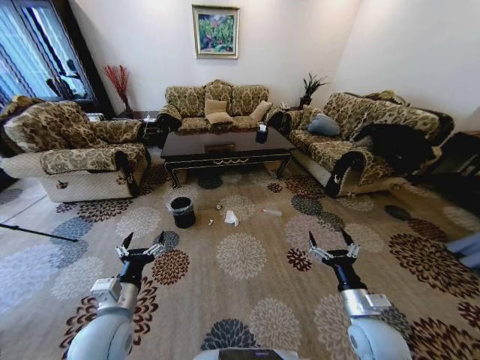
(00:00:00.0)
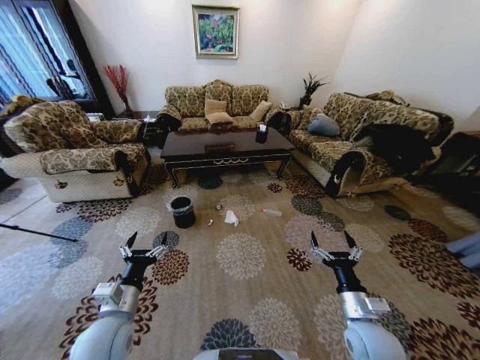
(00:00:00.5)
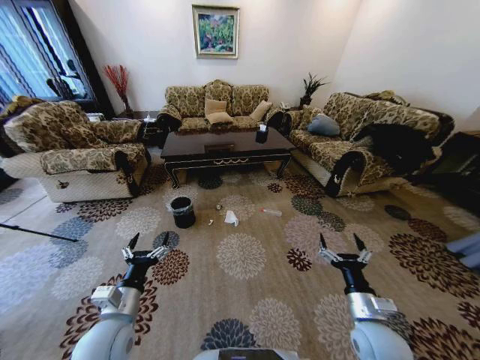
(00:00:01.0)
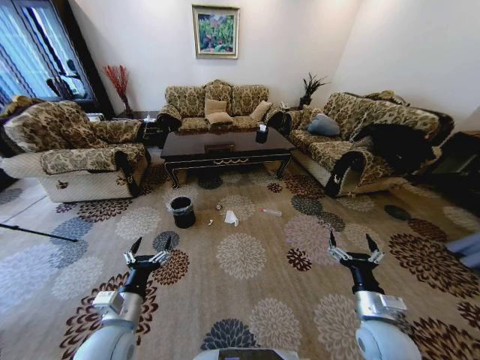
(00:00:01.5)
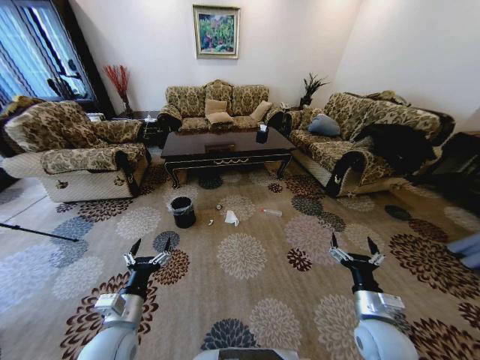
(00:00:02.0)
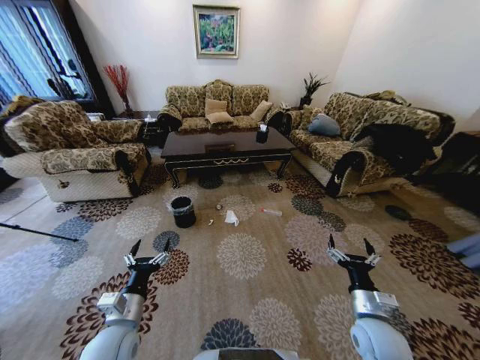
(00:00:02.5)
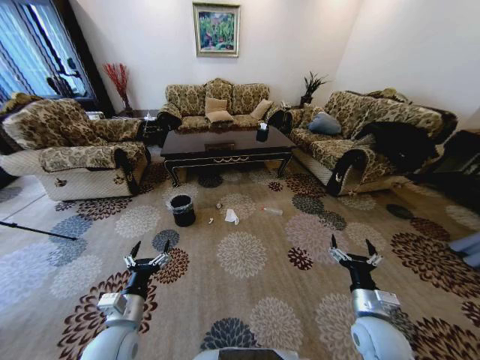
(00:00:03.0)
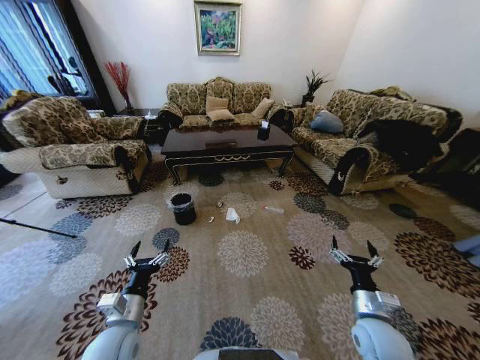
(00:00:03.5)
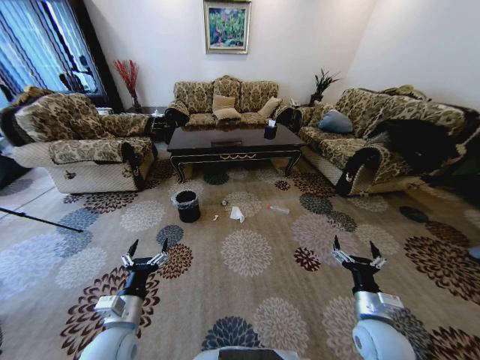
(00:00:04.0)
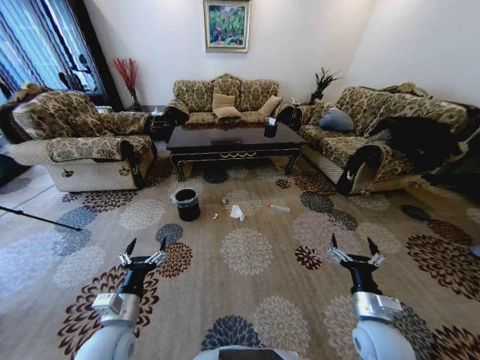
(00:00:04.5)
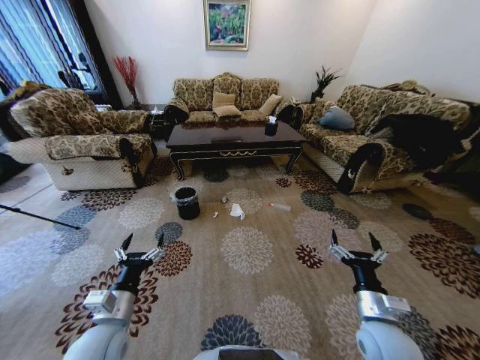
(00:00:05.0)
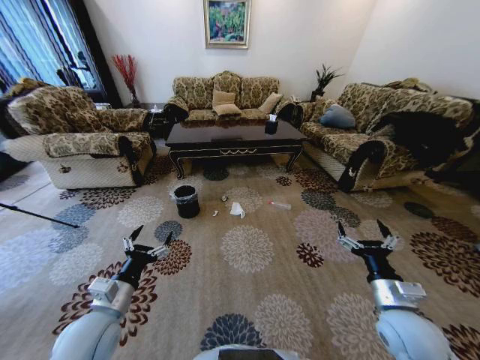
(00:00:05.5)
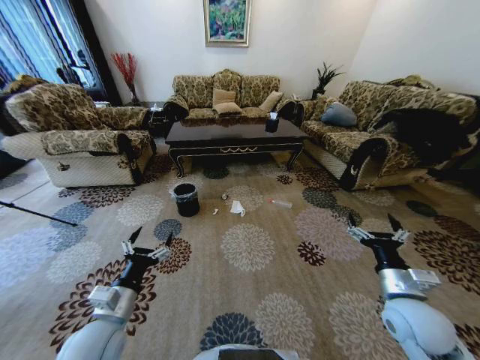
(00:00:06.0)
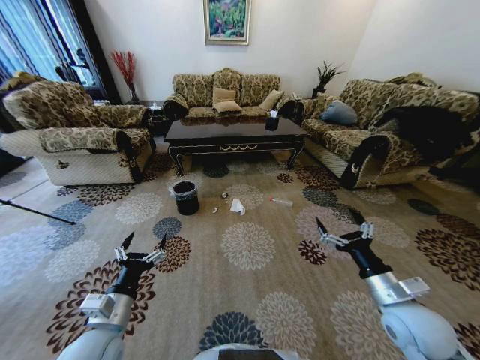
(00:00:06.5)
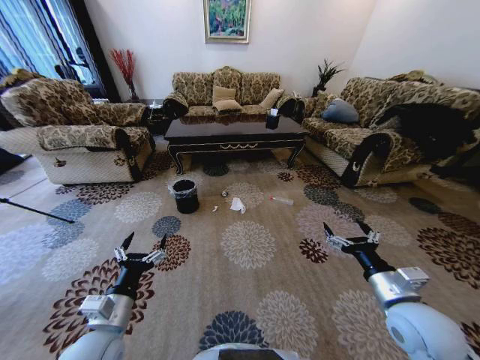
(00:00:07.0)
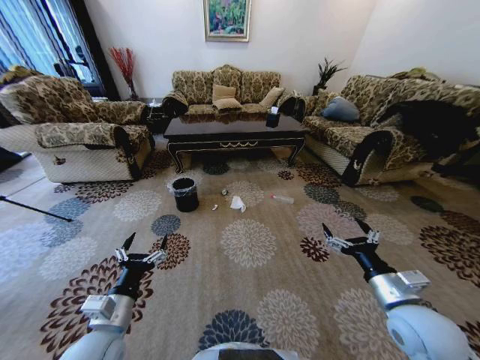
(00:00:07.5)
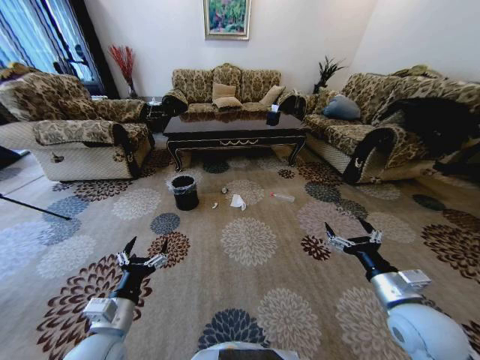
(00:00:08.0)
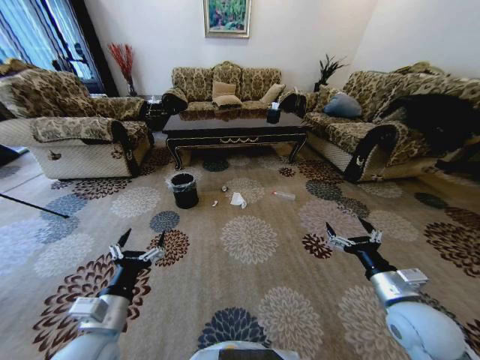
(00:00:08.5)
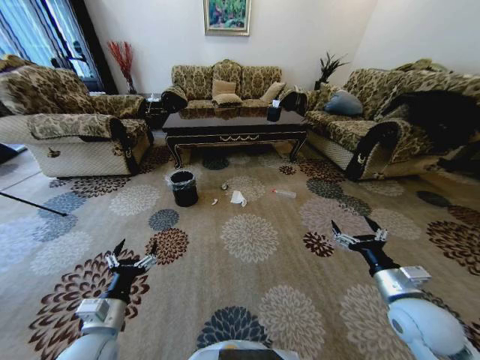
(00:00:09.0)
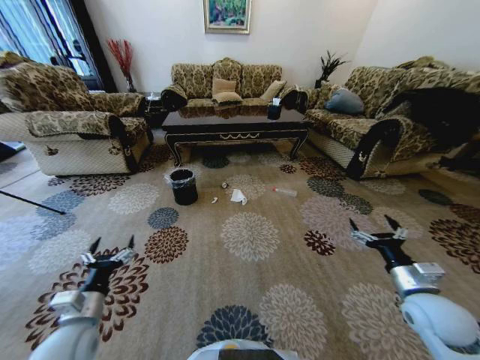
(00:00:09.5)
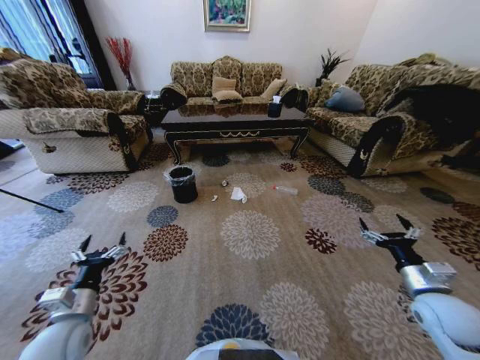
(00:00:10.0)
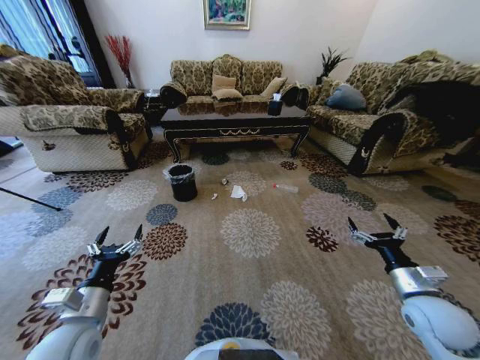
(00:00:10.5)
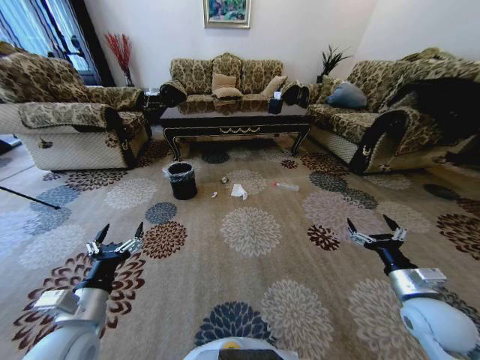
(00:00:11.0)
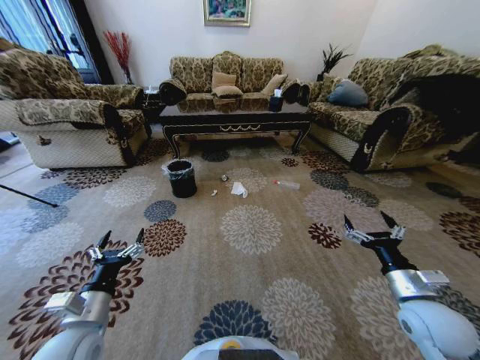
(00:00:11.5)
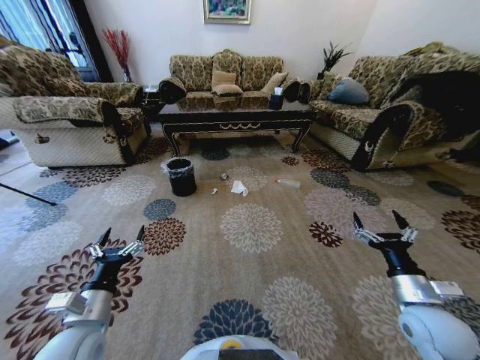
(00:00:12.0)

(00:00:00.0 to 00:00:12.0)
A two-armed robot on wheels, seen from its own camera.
Task of the whole recording: Move to the front of the table and pick up the trash from the floor, then place it into the trash bin.
00:00:04.0 - 00:00:06.0: The right gripper is displaced upward by about 10 cm.
00:00:08.0 - 00:00:10.0: The left gripper shifts roughly 10 cm to the left; the right gripper heads to the right, covering about 10 cm.
00:00:10.0 - 00:00:12.0: The left gripper goes roughly 5 cm to the right. Meanwhile the right gripper shifts by roughly 5 cm.

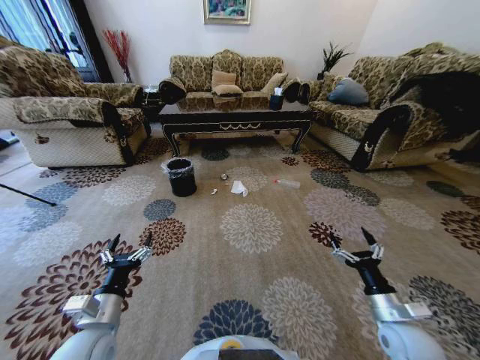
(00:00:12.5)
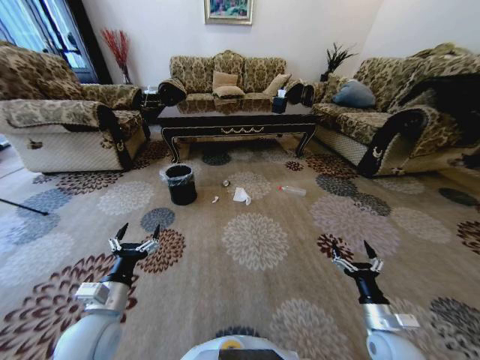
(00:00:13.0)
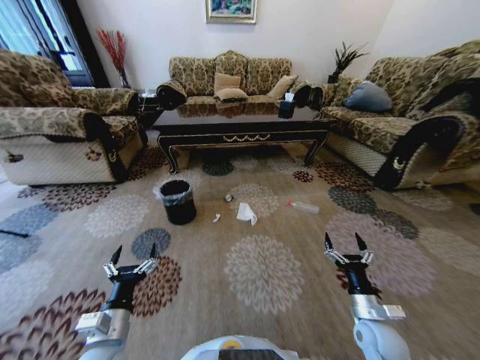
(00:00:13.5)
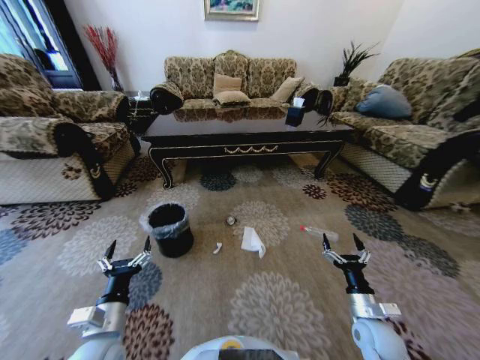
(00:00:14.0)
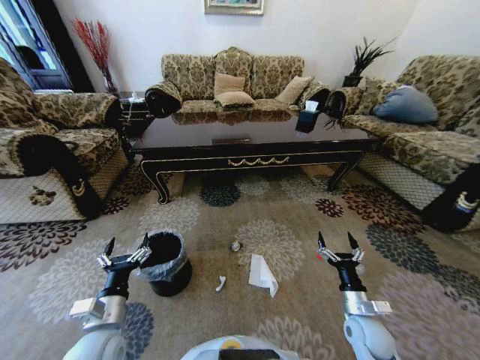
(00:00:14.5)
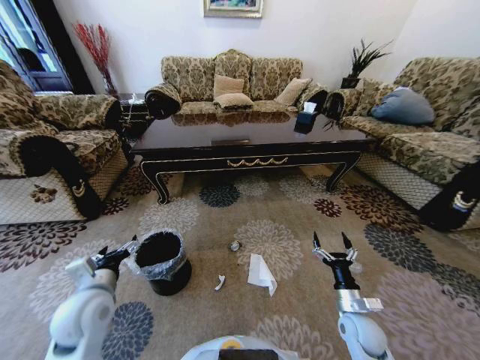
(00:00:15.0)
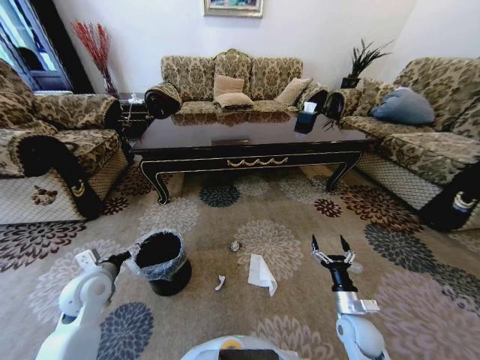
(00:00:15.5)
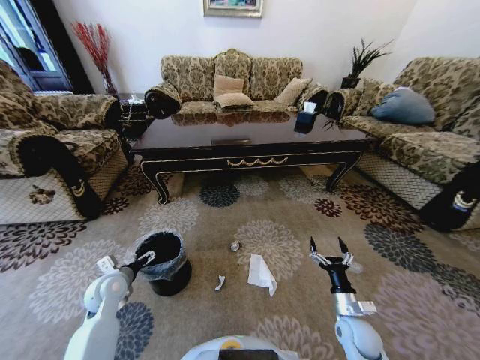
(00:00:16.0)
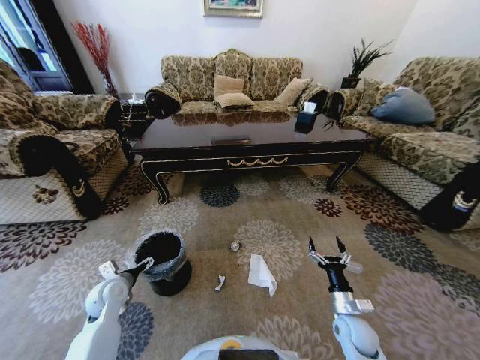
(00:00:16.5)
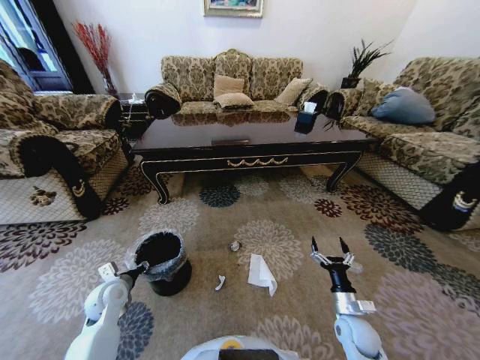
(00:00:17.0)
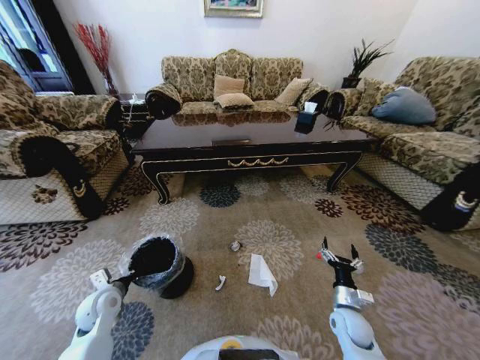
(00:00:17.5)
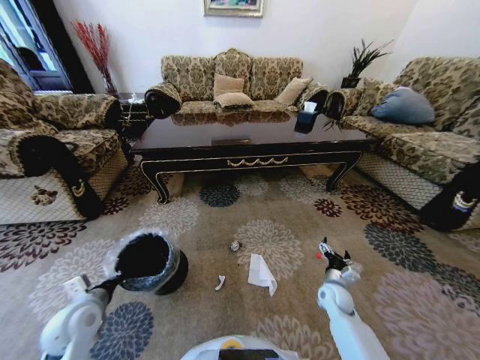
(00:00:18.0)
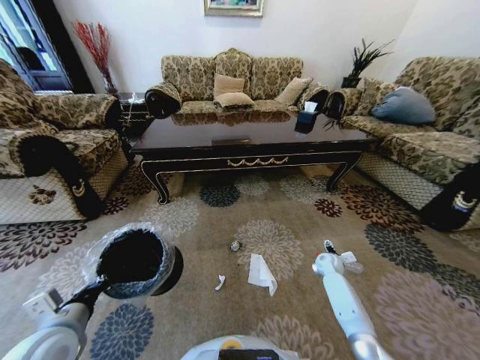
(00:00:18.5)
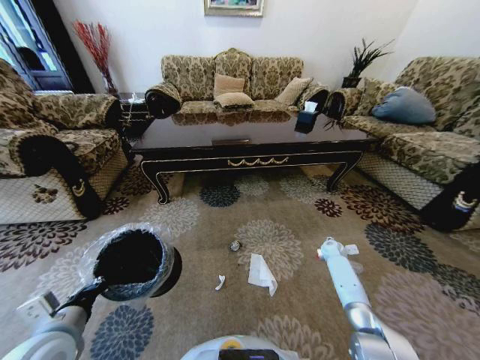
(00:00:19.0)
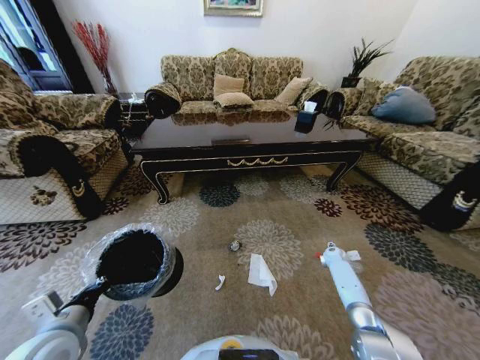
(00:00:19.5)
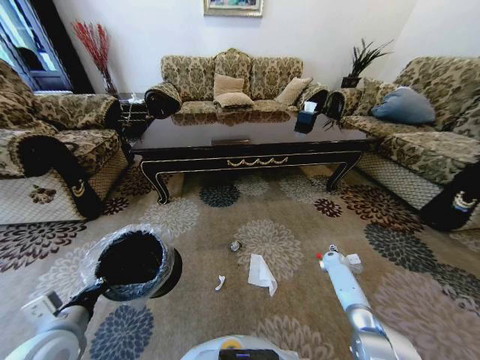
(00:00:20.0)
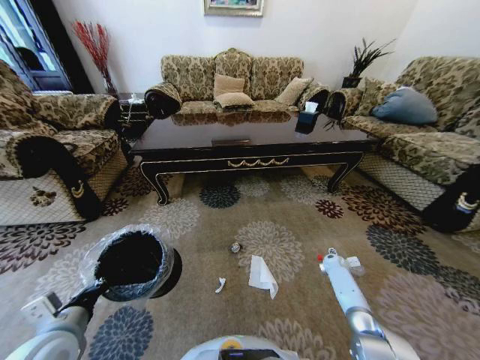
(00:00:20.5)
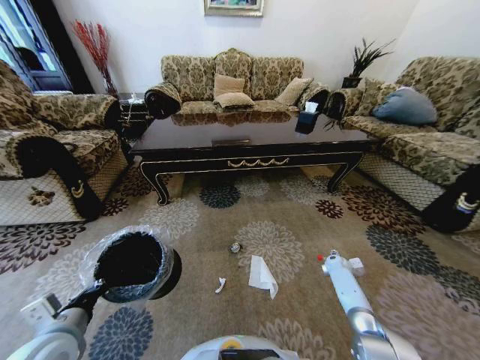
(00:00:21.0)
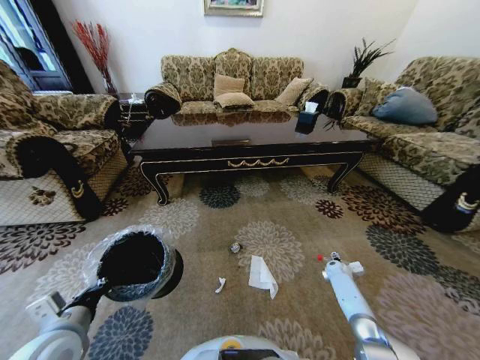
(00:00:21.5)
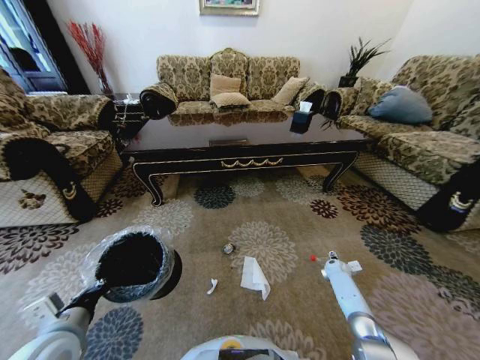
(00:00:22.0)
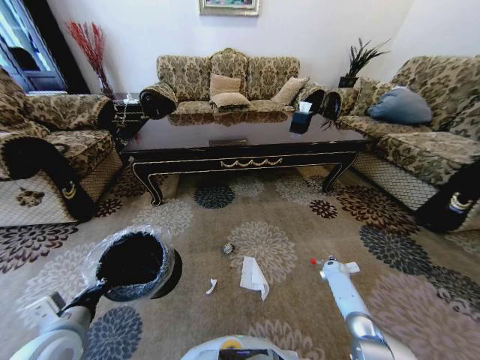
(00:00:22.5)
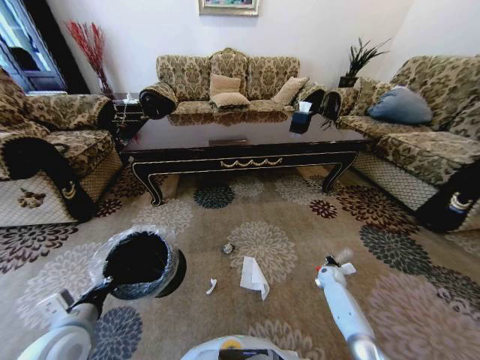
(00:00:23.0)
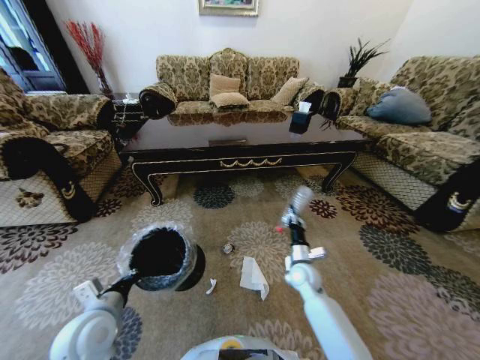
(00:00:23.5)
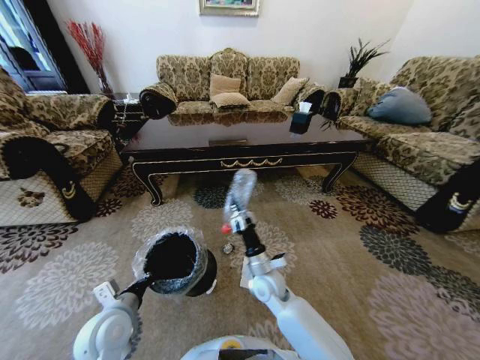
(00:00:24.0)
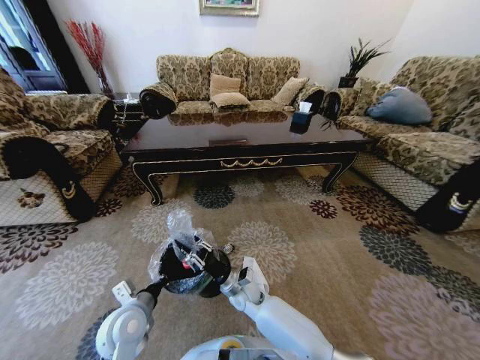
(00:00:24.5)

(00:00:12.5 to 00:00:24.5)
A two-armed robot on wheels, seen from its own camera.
Task of the whole recording: Move to the front of the table and pick up the trash from the floor, then place it into the trash bin.
00:00:12.5 - 00:00:14.5: The right gripper moves downward, about 5 cm.
00:00:14.5 - 00:00:16.5: The left gripper shifts some 15 cm forward, to the left and downward.
00:00:16.5 - 00:00:18.5: The right gripper shifts approximately 20 cm forward. The left gripper goes about 20 cm backward and upward, and closes.
00:00:18.5 - 00:00:20.5: The right gripper goes some 10 cm to the right and downward.
00:00:22.5 - 00:00:24.5: The right gripper travels to the left by some 40 cm, and closes. Meanwhile the left gripper heads to the right, downward and forward, covering some 10 cm.

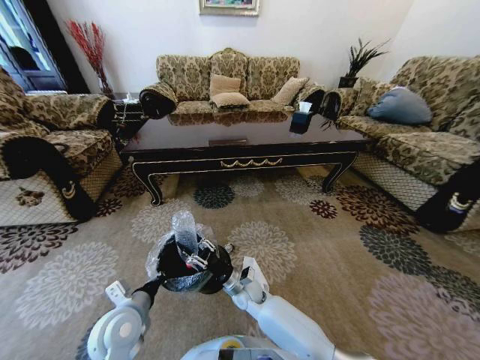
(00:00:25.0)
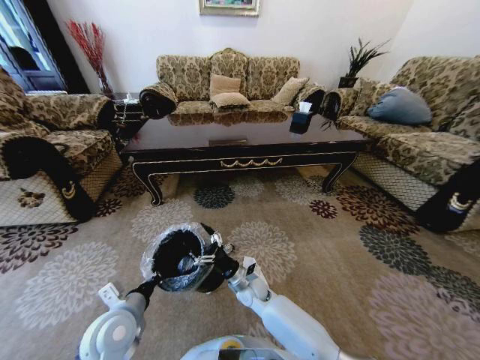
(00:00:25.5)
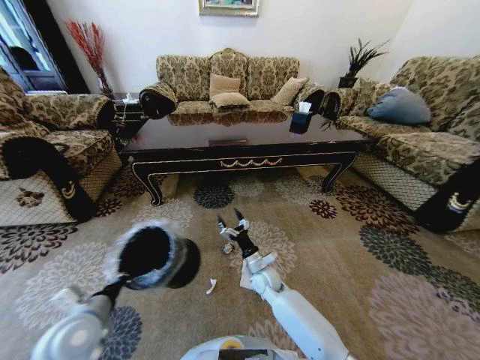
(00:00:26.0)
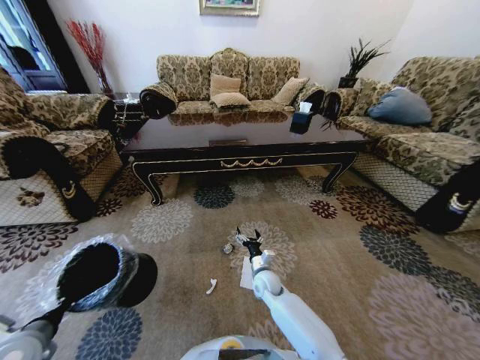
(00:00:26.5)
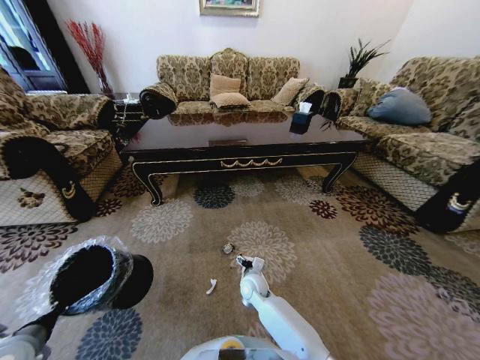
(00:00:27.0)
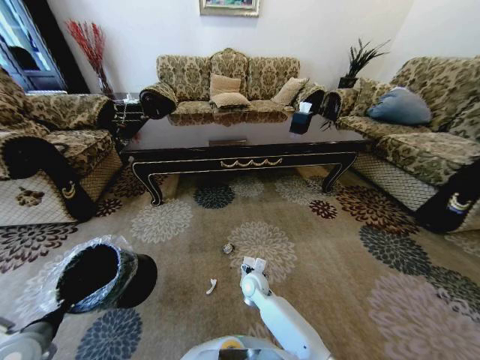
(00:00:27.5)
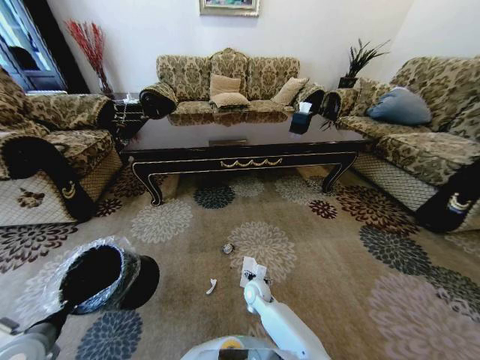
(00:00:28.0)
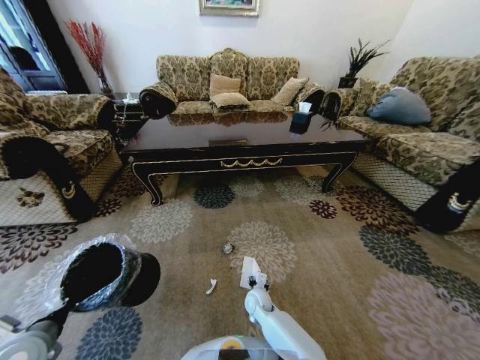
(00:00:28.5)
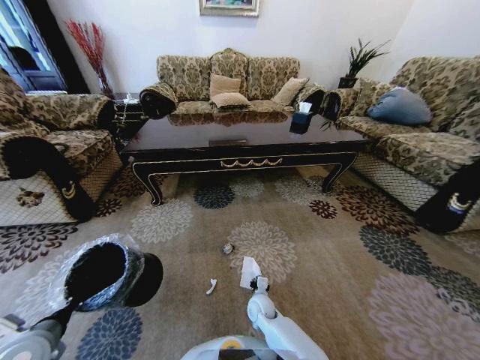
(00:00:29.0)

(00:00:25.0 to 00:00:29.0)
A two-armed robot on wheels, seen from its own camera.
Task of the whole recording: Move to the front of the table and pick up the trash from the floor, then place it into the trash bin.
00:00:25.0 - 00:00:27.0: The right gripper moves roughly 10 cm to the right and comes back, and opens. The left gripper moves to the left, approximately 20 cm.
00:00:27.0 - 00:00:29.0: The right gripper moves downward, roughly 5 cm, and closes.
